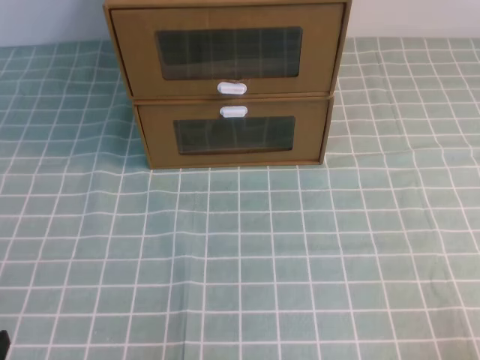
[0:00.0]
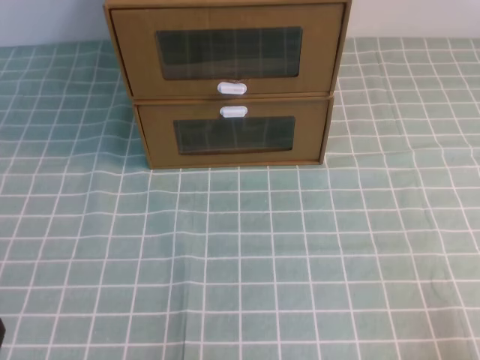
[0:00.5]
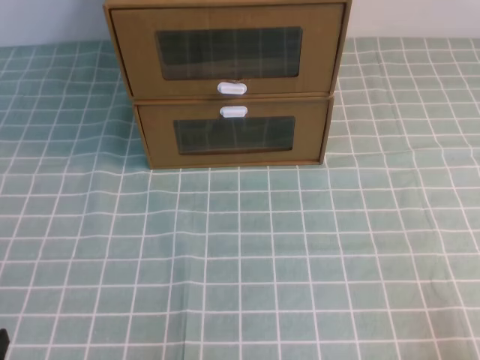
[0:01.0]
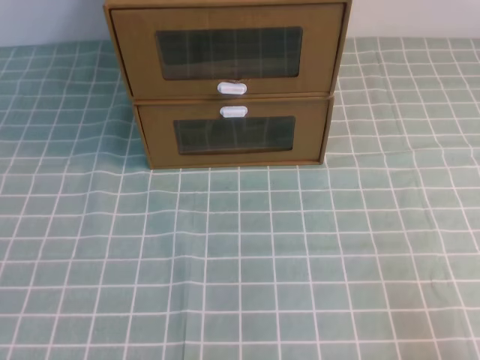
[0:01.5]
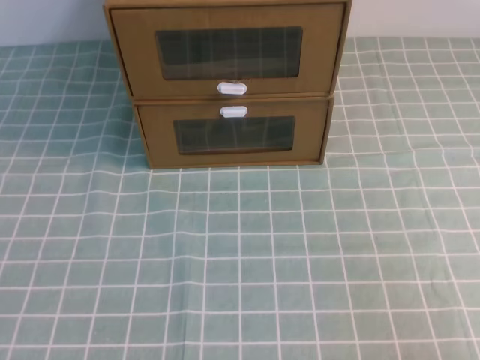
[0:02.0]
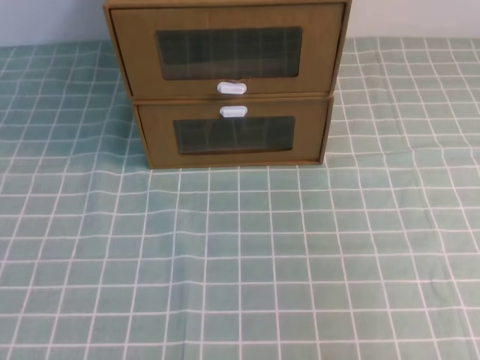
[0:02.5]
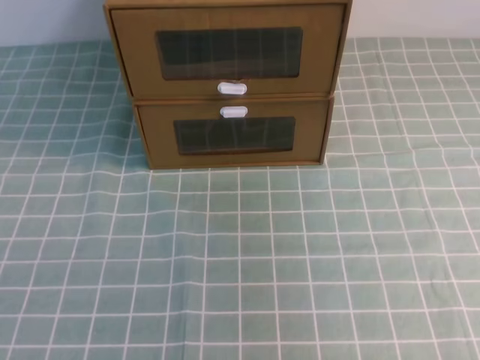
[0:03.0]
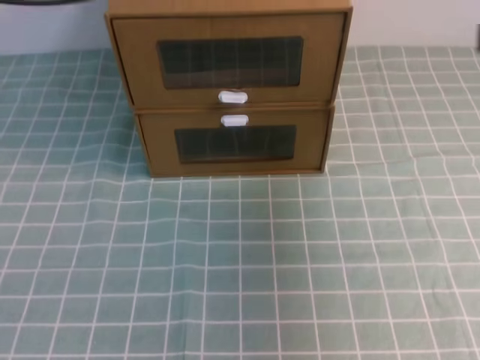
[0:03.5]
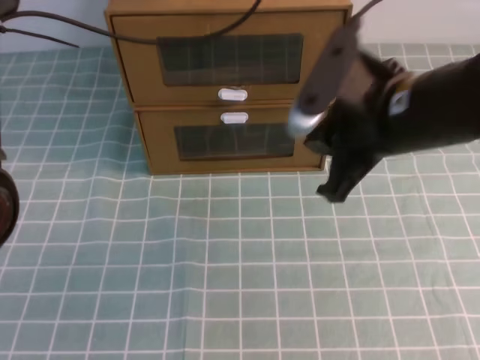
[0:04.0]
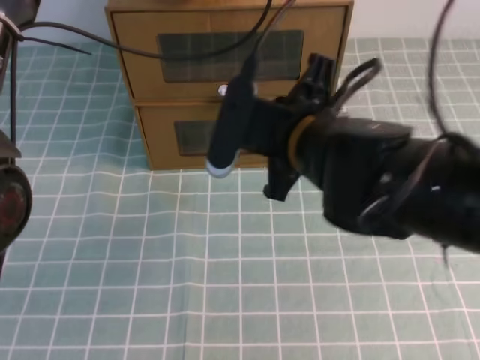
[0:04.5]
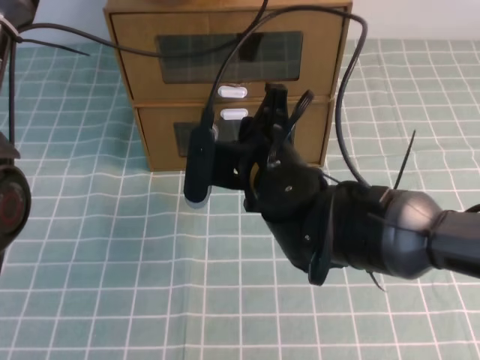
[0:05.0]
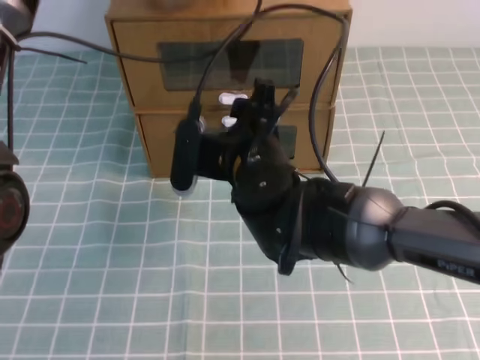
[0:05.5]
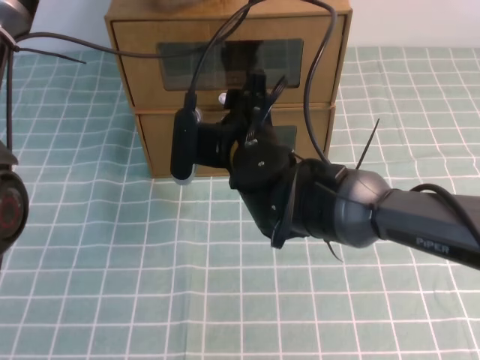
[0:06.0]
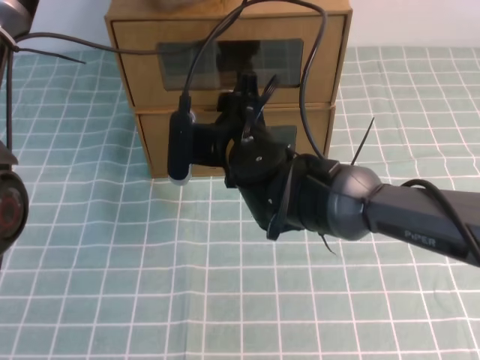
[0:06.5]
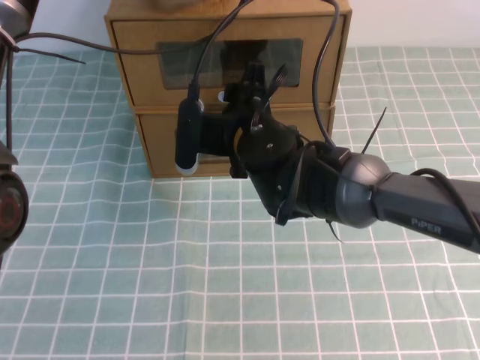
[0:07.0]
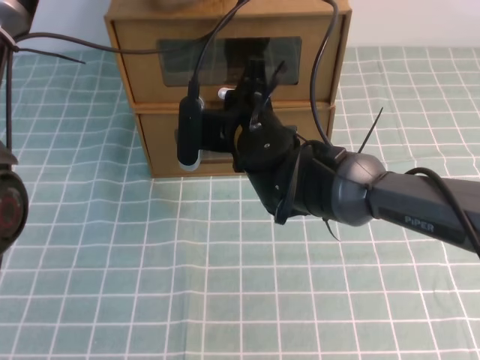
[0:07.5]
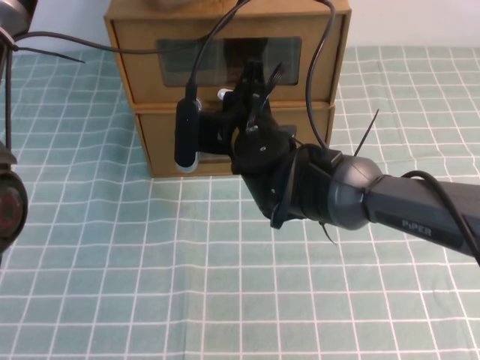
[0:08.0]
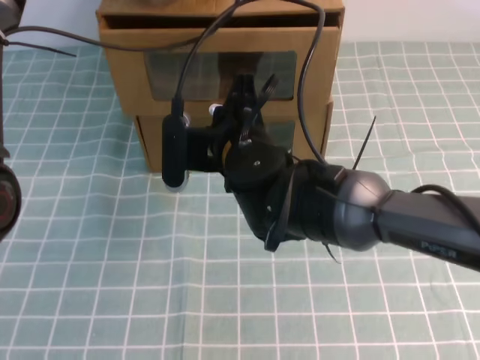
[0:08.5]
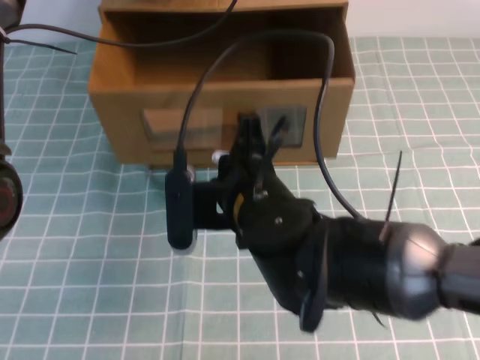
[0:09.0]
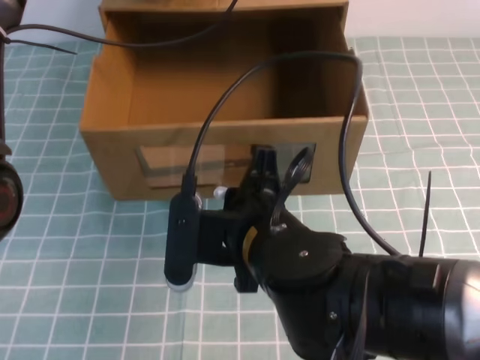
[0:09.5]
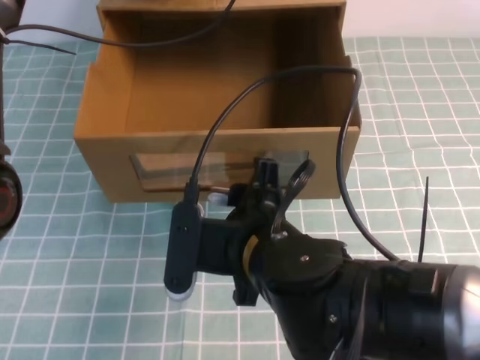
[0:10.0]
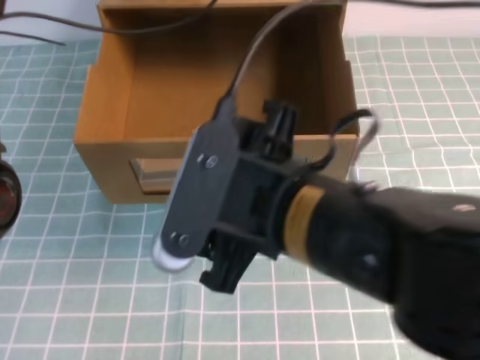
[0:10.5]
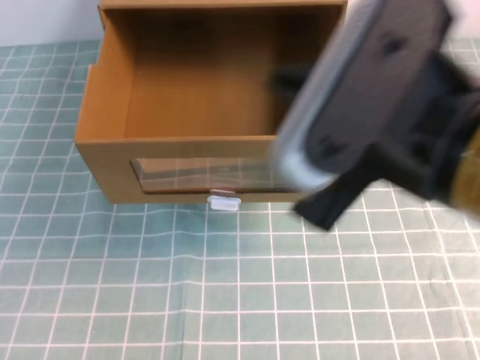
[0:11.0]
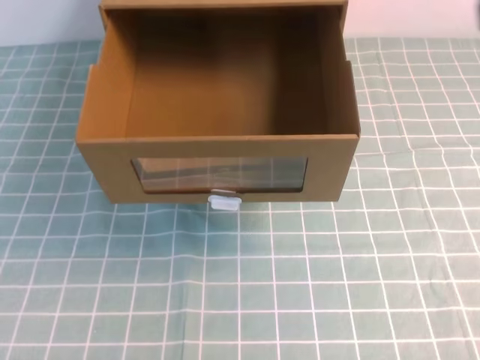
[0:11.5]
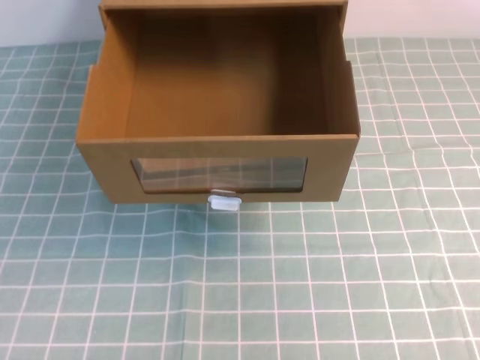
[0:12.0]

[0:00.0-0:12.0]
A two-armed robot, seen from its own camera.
Task of the whole recording: open the shoebox on the cyan tablecloth.
0:02.0 to 0:04.0: The right gripper travels forward and to the left by some 30 cm. The left gripper heads forward, covering roughly 40 cm.
0:04.0 to 0:06.0: The right gripper shifts about 15 cm to the left and downward, and opens.
0:06.0 to 0:08.0: The right gripper closes up.
0:08.0 to 0:10.0: The right gripper travels backward by roughly 15 cm, and opens up.
0:10.0 to 0:12.0: The right gripper travels to the right, upward and backward by roughly 35 cm, and closes its fingers, while the left gripper goes approximately 40 cm backward and upward.

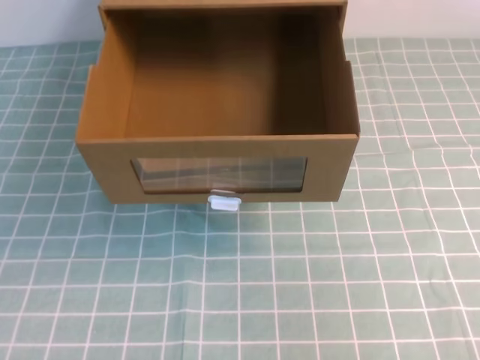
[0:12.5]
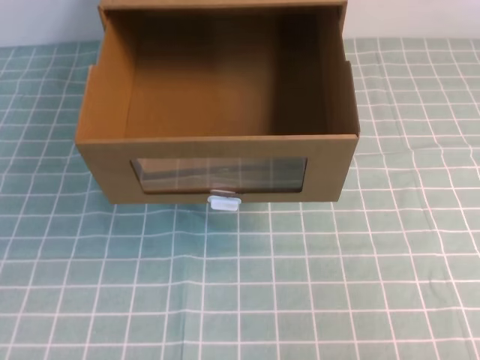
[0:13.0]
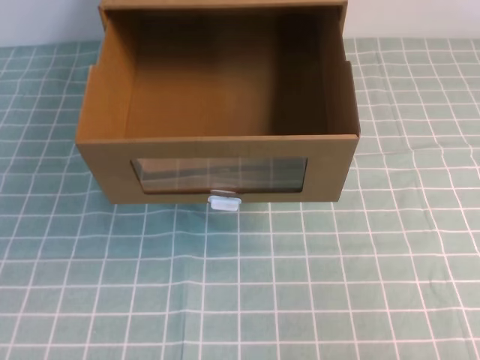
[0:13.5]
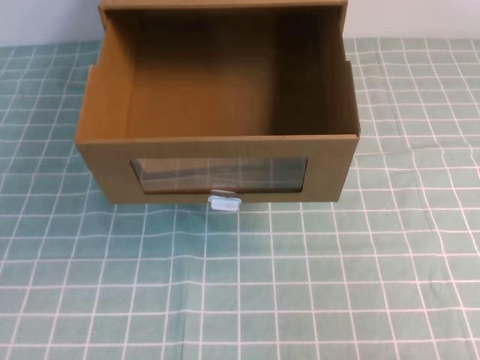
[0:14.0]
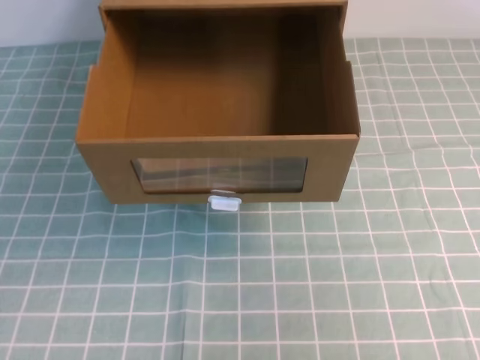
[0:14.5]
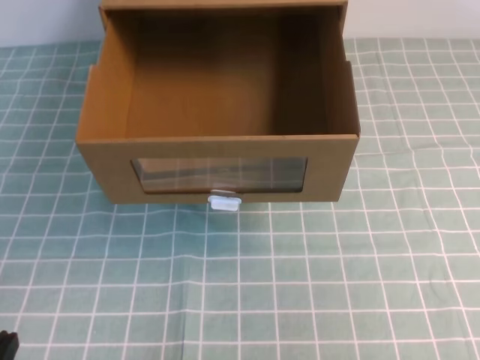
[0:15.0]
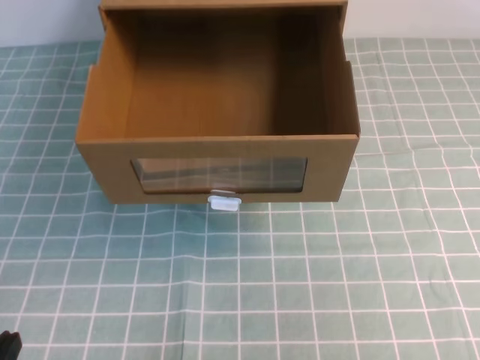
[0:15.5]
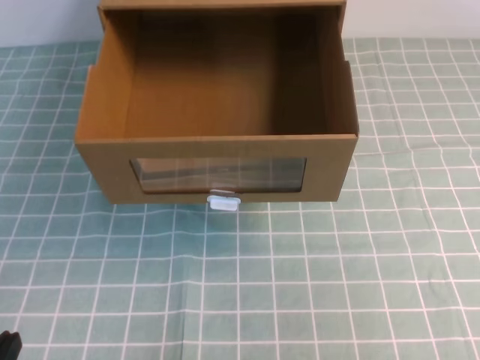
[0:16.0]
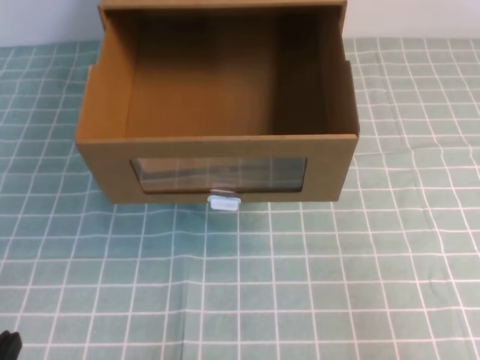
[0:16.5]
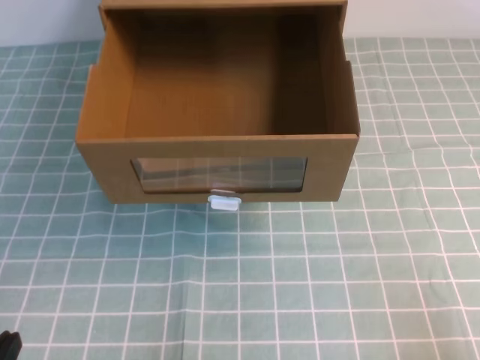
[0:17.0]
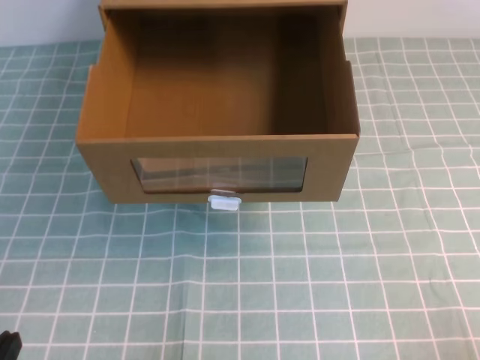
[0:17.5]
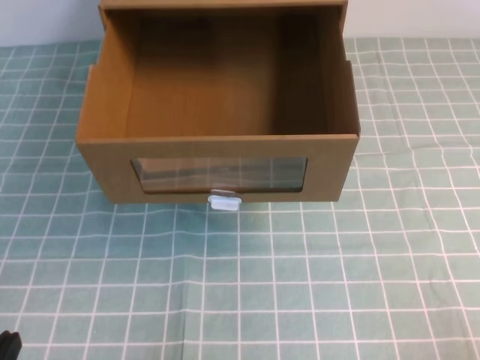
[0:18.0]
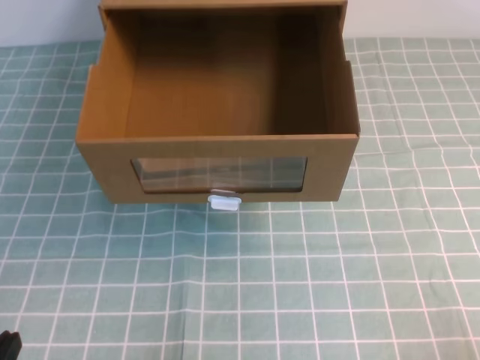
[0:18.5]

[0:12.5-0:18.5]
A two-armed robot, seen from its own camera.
Task of the whole recording: open the shoebox on the cyan tablecloth.
0:16.5 to 0:18.5: The right gripper travels downward by approximately 15 cm.

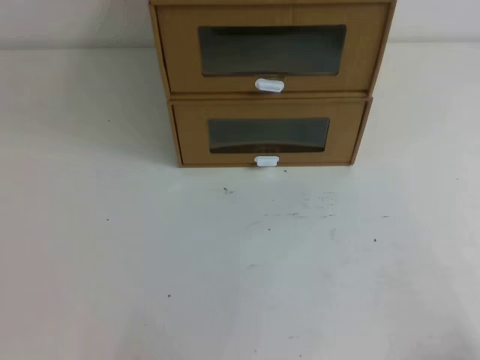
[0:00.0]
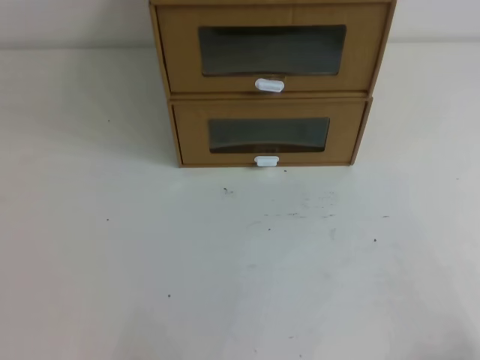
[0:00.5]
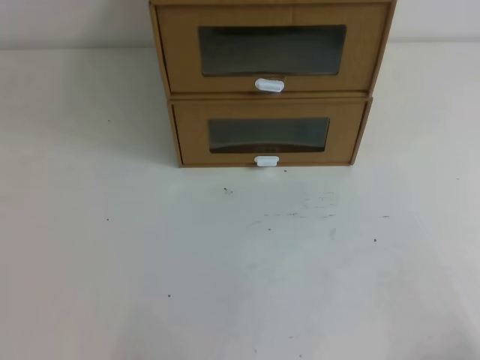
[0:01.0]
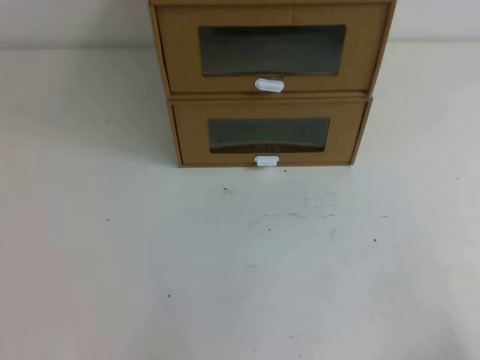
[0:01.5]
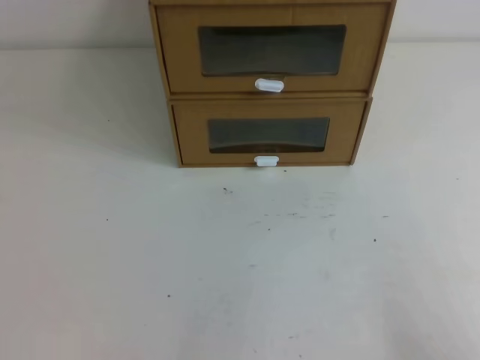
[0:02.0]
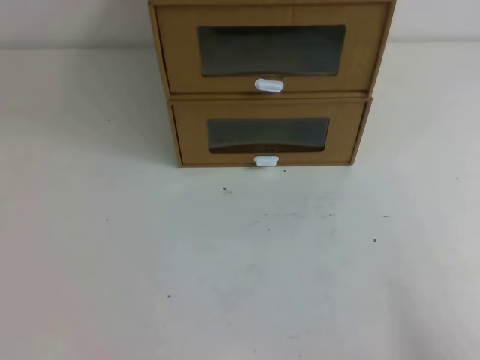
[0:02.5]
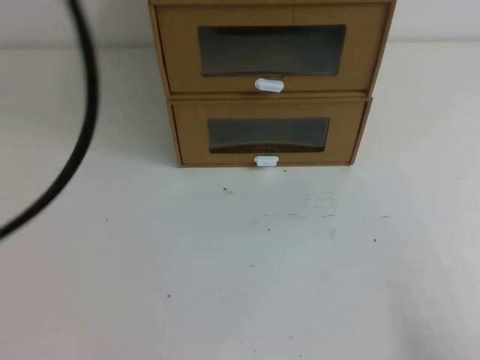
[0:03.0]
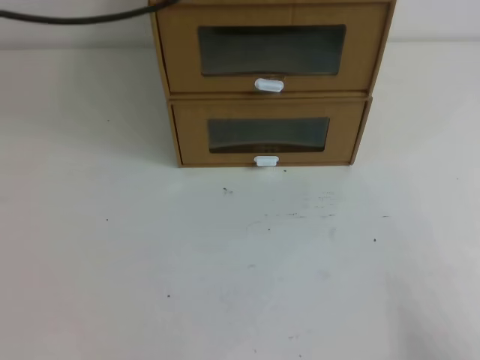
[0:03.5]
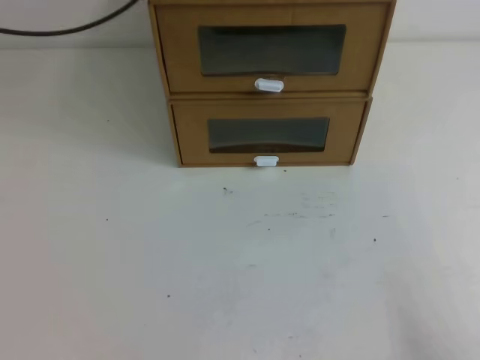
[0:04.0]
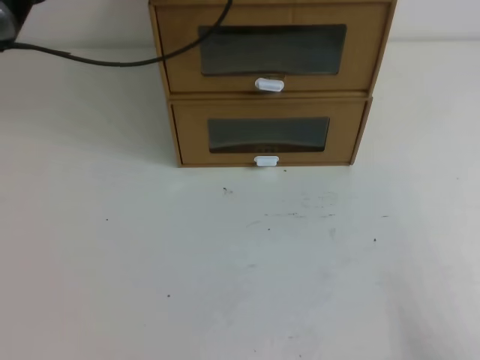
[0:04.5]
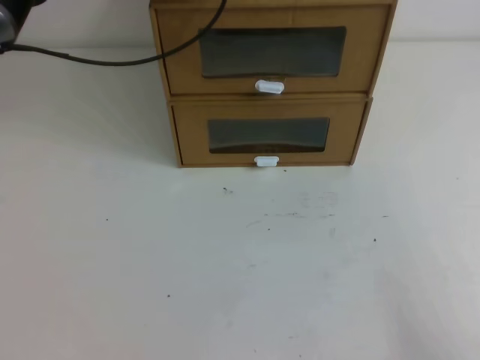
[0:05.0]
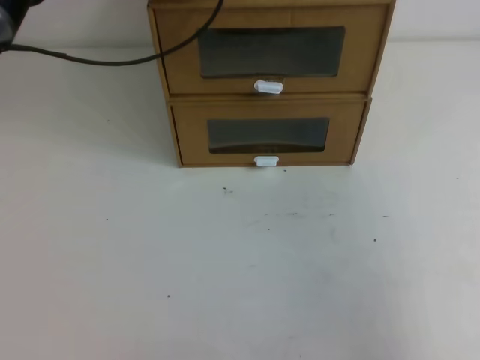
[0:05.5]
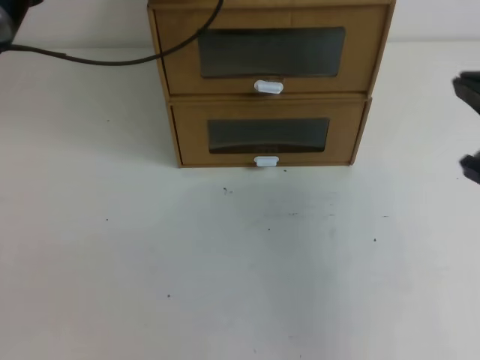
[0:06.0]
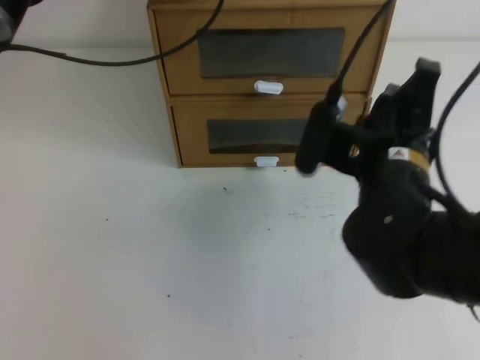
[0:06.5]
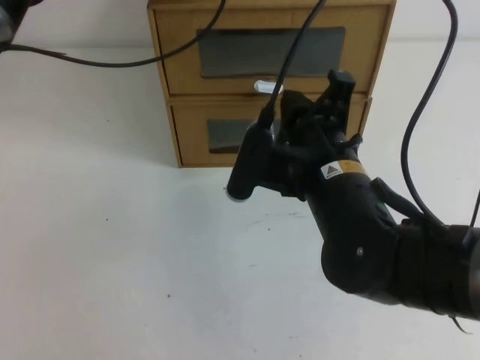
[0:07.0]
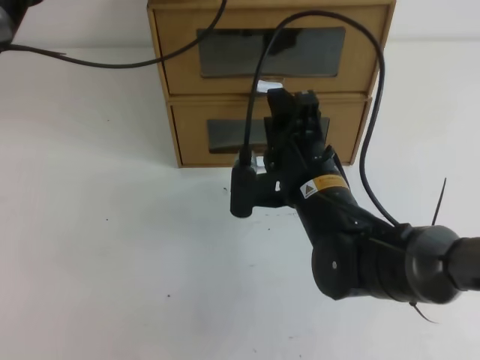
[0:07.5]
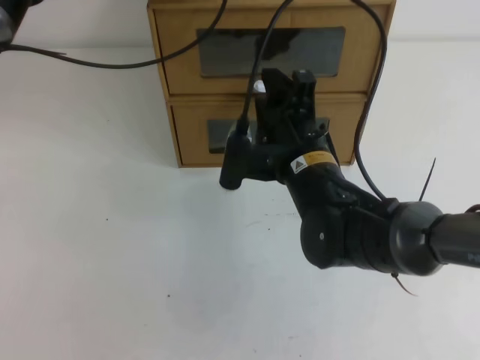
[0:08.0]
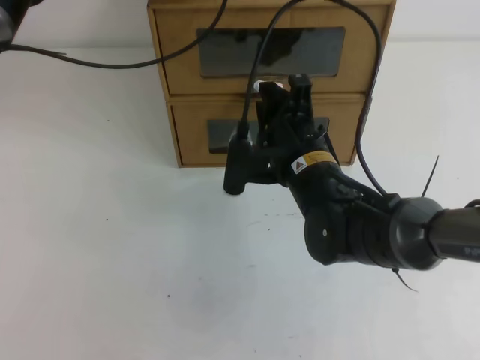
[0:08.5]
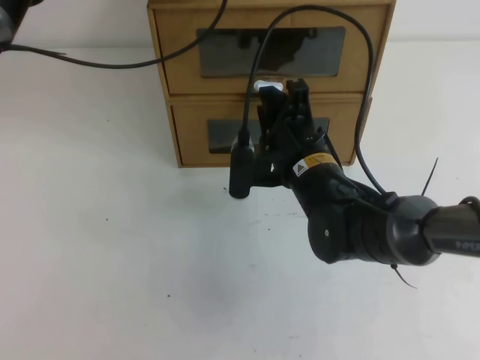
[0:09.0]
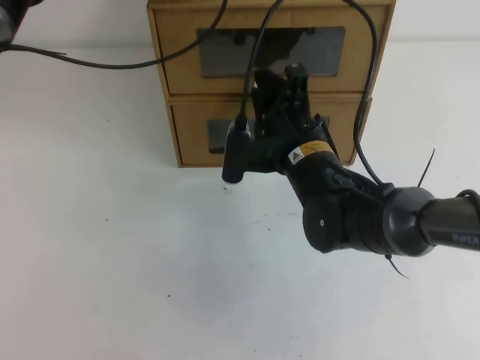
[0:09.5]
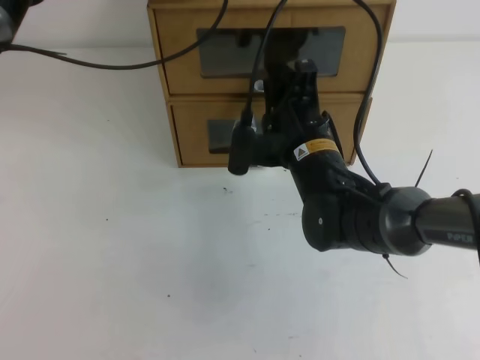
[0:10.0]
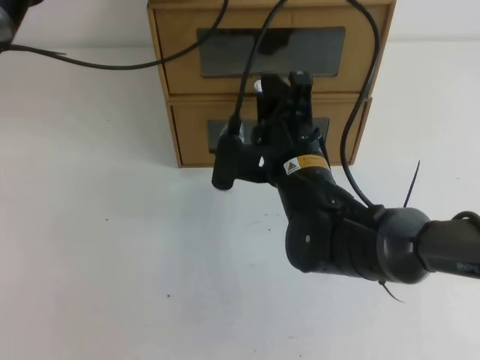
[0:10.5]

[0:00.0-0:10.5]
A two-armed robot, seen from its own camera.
Task of the whole recording: open the shoebox on the table.
0:04.0 to 0:06.5: The right gripper heads forward, to the left and upward, covering approximately 30 cm, while the left gripper moves downward and to the right, roughly 10 cm.
0:06.5 to 0:08.5: The right gripper is displaced downward, to the left and forward by roughly 10 cm, and opens up.
0:08.5 to 0:10.5: There are only small adjustments of the grippers.
